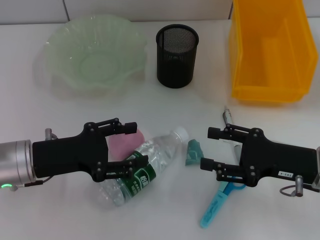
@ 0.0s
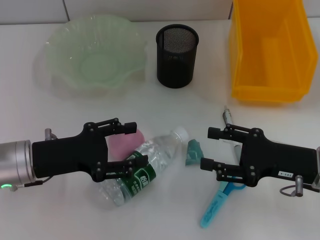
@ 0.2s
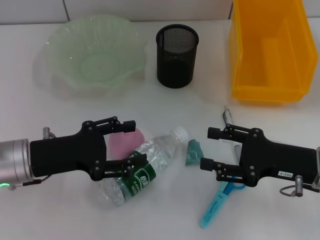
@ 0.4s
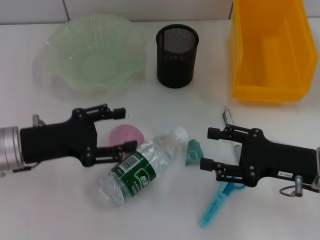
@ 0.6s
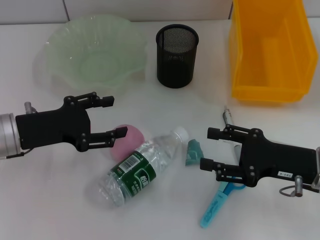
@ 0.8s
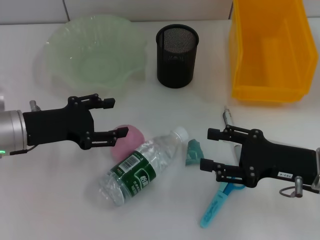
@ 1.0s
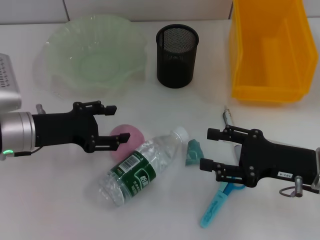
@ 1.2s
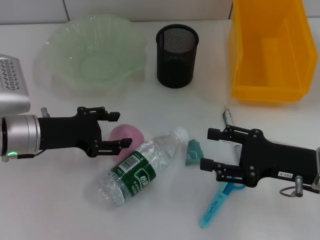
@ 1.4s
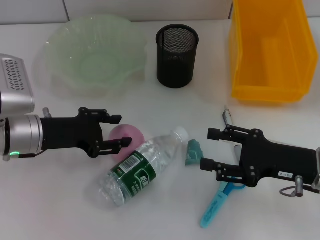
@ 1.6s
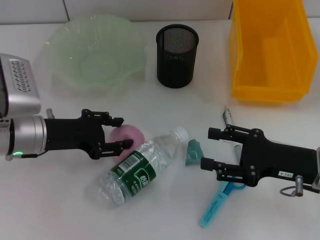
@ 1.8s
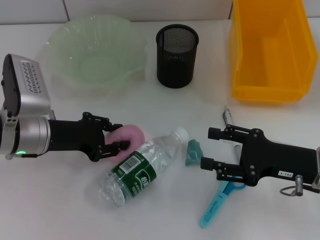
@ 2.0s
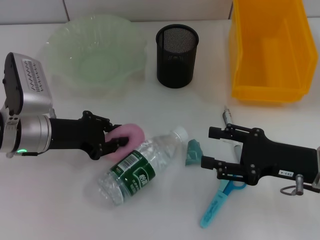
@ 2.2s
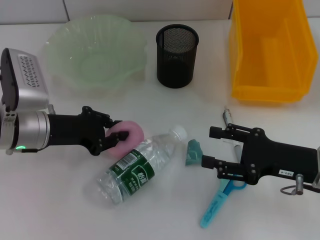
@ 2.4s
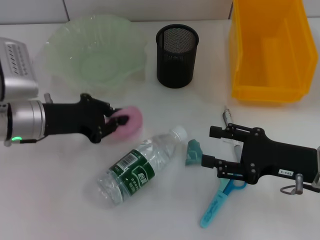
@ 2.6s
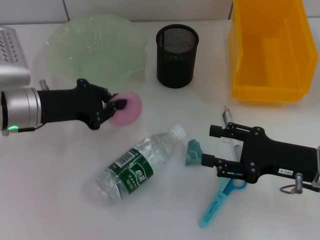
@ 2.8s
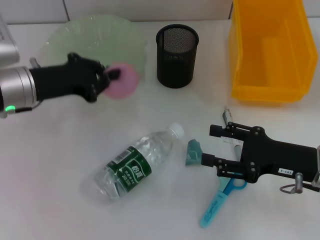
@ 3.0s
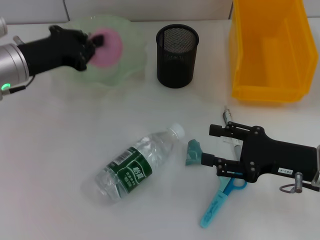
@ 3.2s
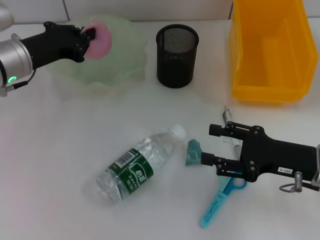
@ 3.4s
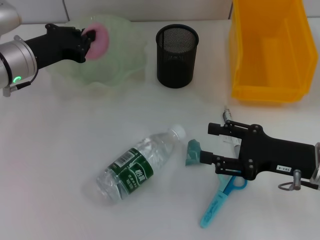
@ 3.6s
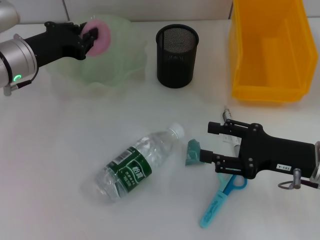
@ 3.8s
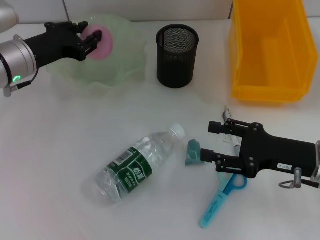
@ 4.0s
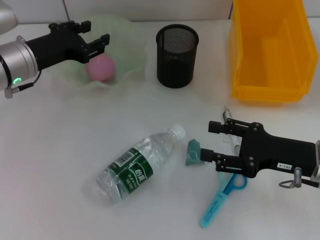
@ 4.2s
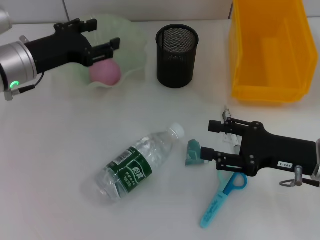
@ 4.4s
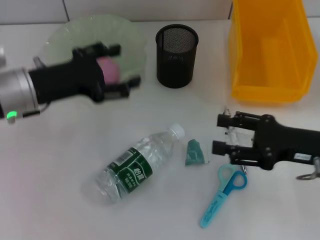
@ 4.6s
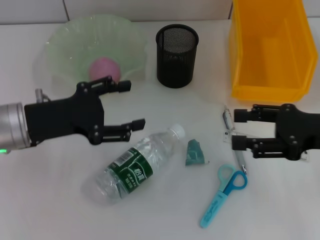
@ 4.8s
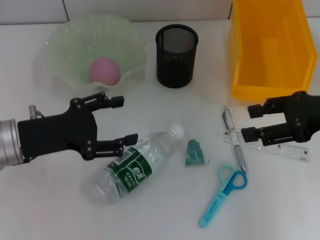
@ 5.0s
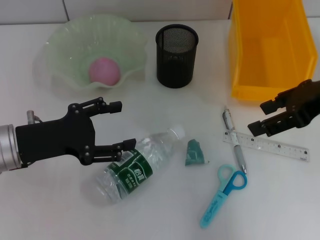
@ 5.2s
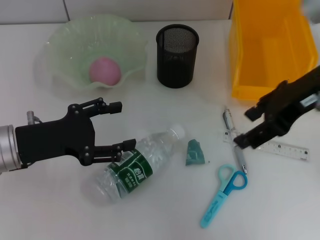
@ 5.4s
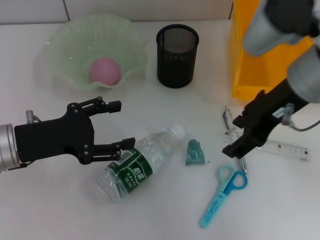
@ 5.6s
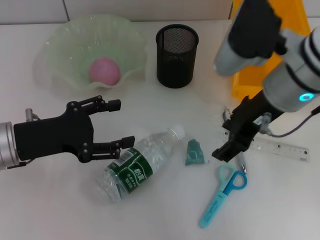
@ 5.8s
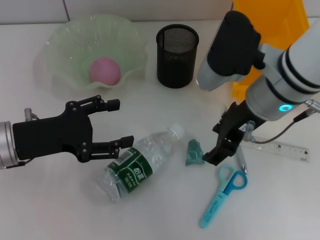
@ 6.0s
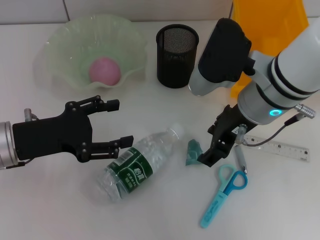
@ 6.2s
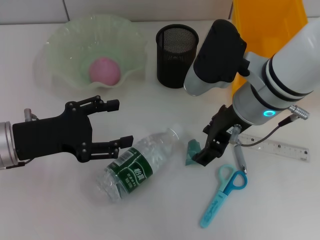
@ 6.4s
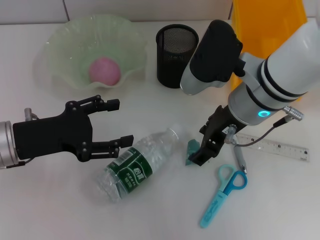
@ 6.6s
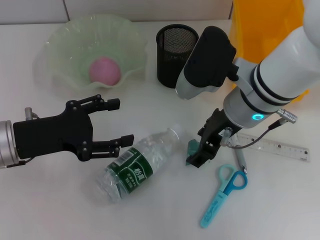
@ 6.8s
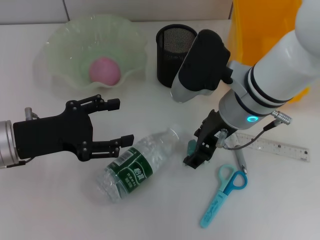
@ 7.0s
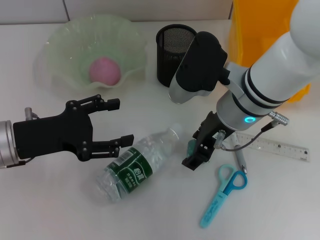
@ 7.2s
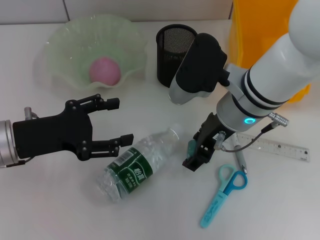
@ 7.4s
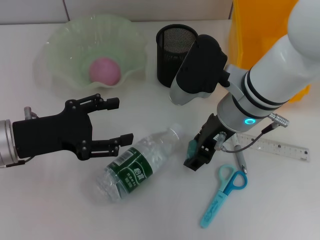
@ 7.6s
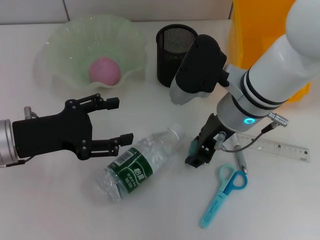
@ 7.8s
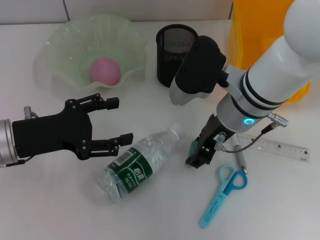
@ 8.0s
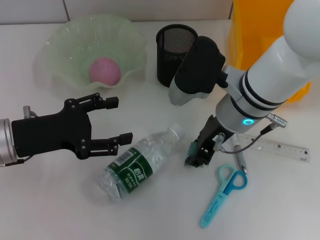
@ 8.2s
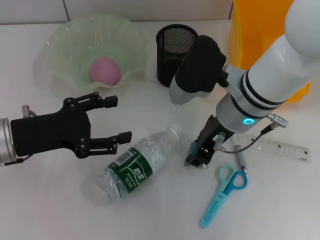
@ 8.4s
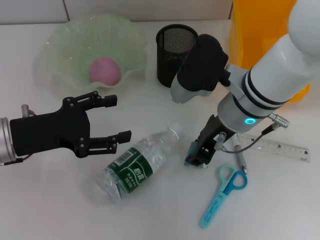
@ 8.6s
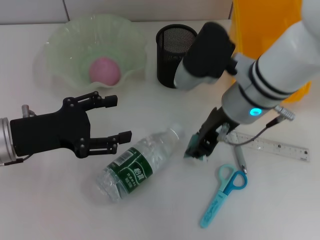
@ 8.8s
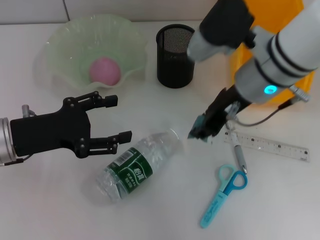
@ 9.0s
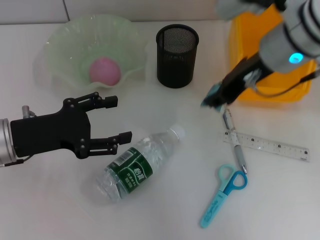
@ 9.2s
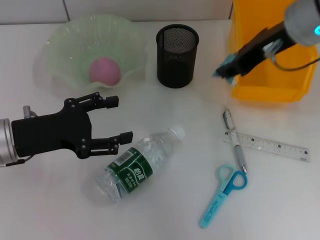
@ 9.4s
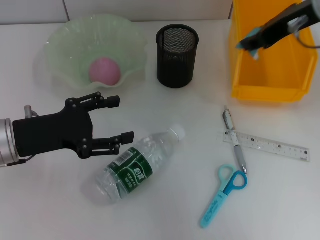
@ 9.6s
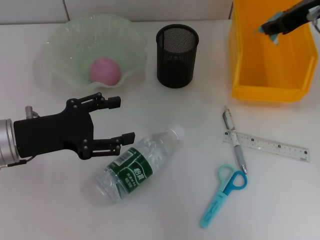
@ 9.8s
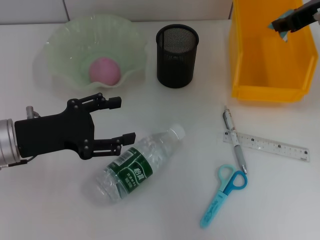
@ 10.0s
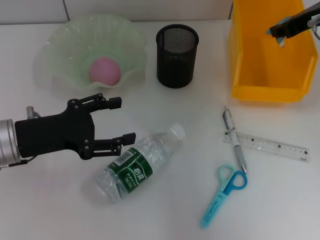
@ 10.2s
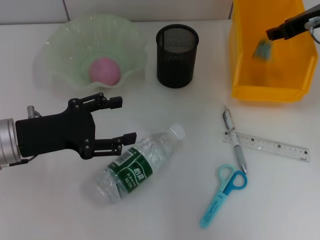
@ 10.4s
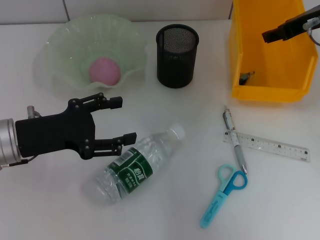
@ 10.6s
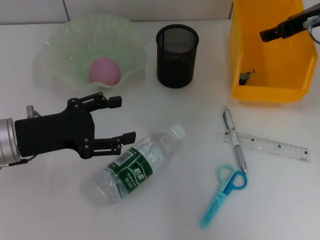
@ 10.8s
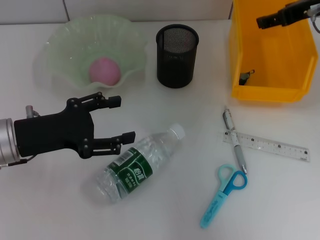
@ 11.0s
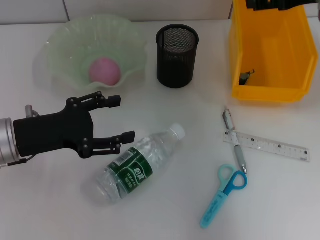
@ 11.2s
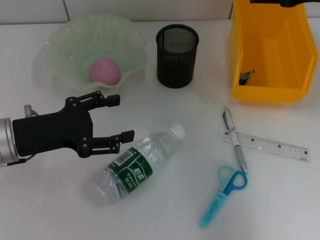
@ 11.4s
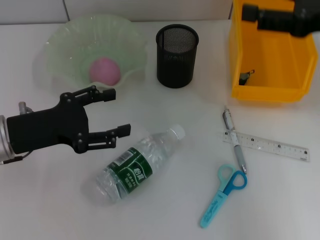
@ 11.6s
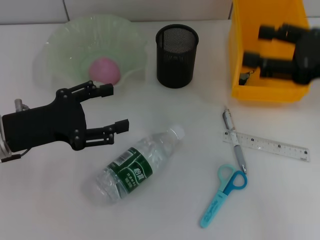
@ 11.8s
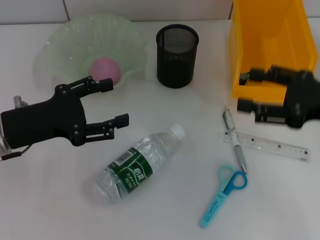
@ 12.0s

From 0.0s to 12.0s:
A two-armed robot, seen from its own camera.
Step, from 0.0s to 2.0s: Grab the peach with the left hand.
Step, from 2.2s to 4.2s: Place the peach into the fruit bowl with the left hand.
Step, from 4.4s to 7.6s: Grab the plastic with the right hand.
Step, from 8.0s to 10.6s: Place the plastic into the trash can with the right hand.
From 1.6s to 3.0s: The left gripper changes place by some 5 cm, and closes.
From 3.0s to 4.4s: The left gripper opens up.
From 4.4s to 6.0s: The left gripper shifts approximately 10 cm backward, and opens its fingers; the right gripper goes about 20 cm to the left, upward and forward.
From 6.0s to 7.6s: The grippers stay close to where they were, moving slightly.
From 7.6s to 9.0s: The right gripper moves roughly 5 cm, and closes its fingers.
From 9.0s to 10.4s: The right gripper is displaced to the right and forward by about 15 cm.
From 10.4s to 12.0s: The right gripper goes about 15 cm backward and downward, and opens its fingers.

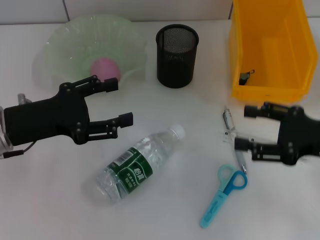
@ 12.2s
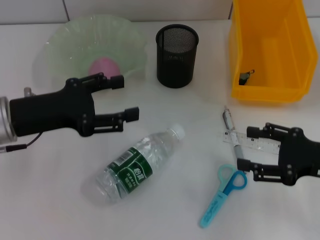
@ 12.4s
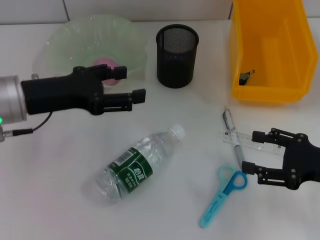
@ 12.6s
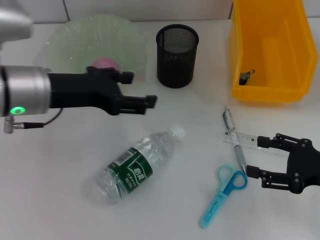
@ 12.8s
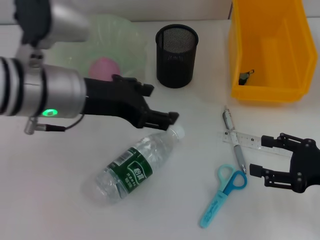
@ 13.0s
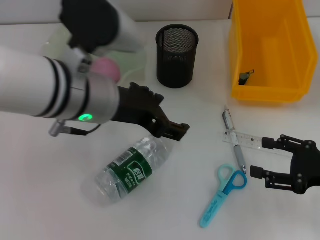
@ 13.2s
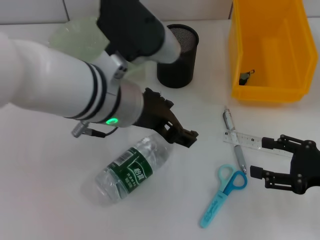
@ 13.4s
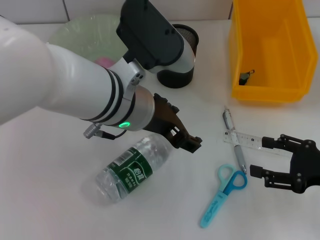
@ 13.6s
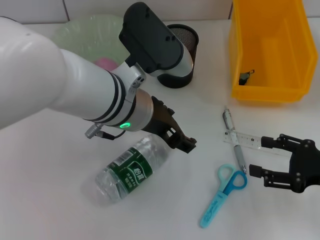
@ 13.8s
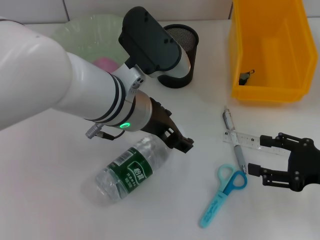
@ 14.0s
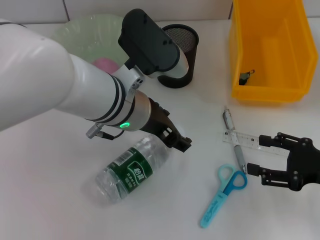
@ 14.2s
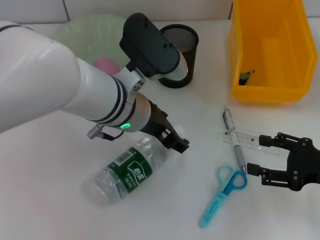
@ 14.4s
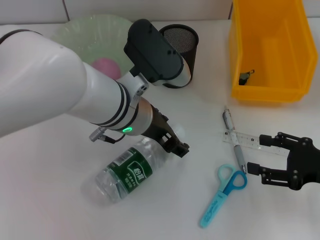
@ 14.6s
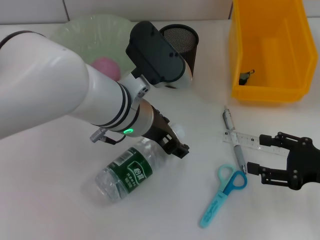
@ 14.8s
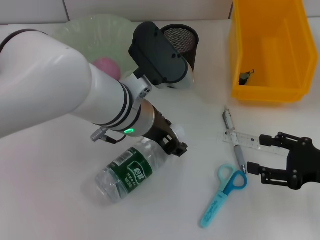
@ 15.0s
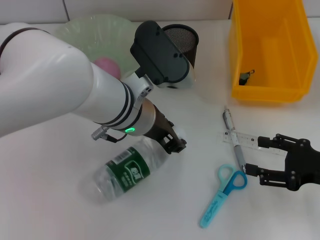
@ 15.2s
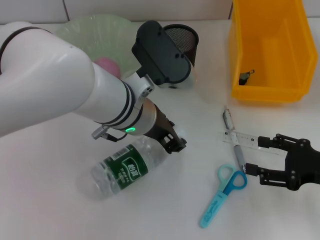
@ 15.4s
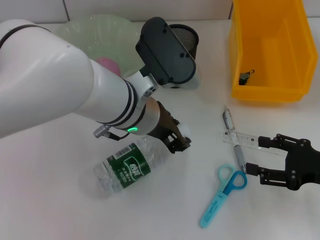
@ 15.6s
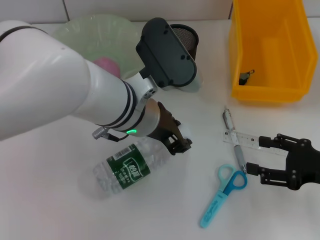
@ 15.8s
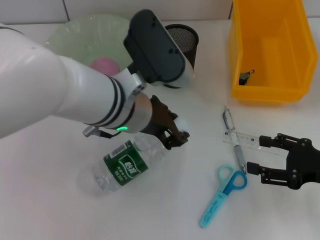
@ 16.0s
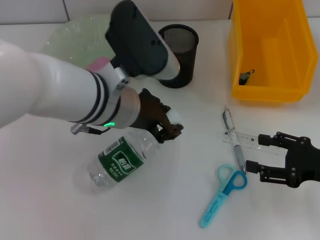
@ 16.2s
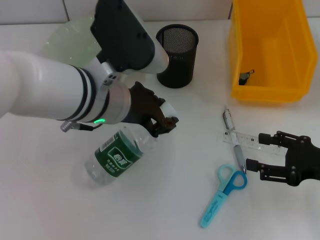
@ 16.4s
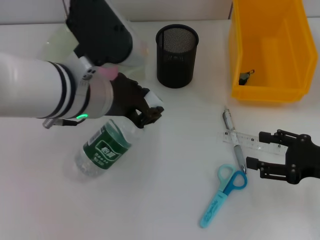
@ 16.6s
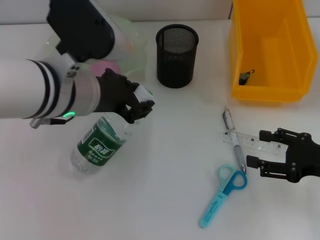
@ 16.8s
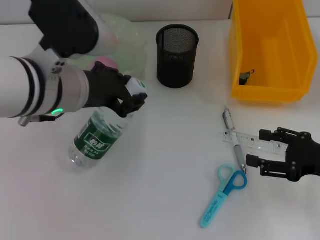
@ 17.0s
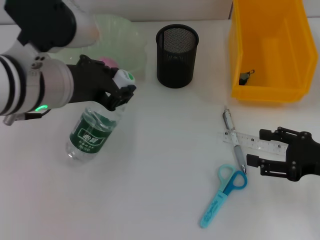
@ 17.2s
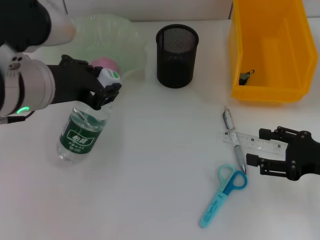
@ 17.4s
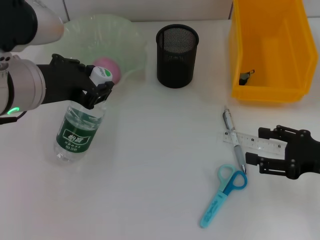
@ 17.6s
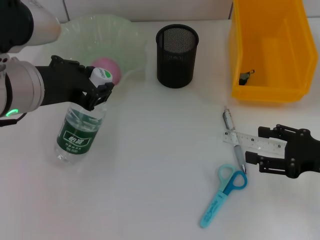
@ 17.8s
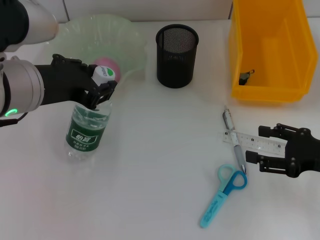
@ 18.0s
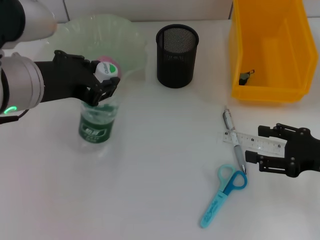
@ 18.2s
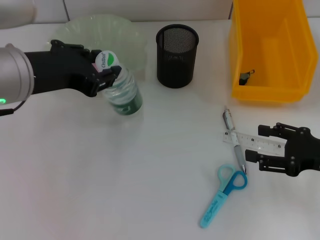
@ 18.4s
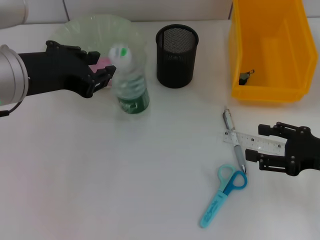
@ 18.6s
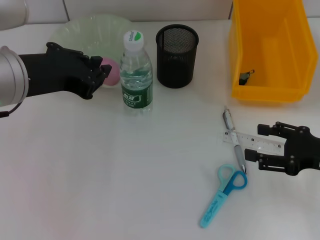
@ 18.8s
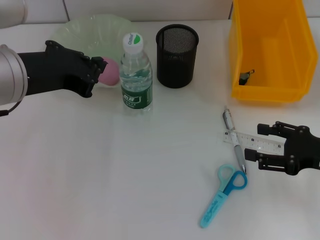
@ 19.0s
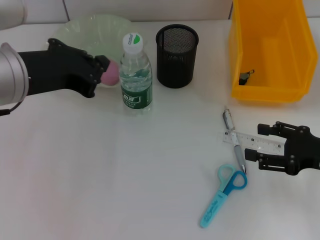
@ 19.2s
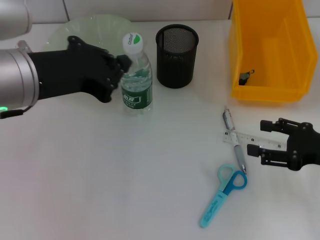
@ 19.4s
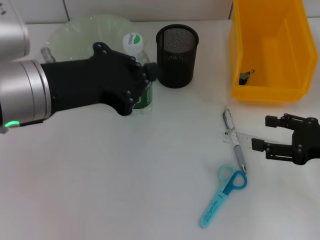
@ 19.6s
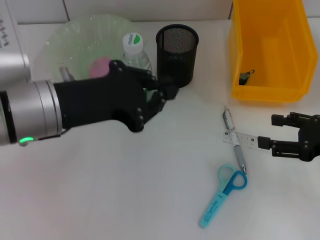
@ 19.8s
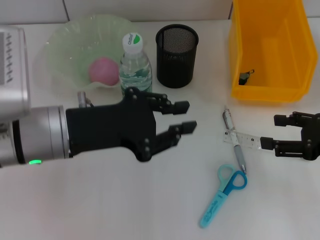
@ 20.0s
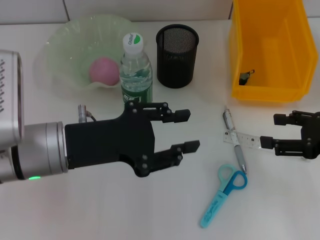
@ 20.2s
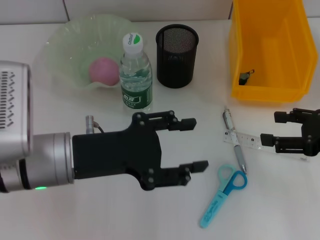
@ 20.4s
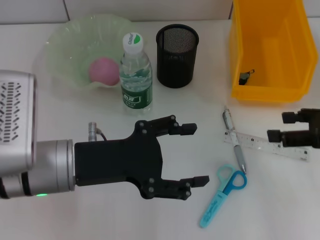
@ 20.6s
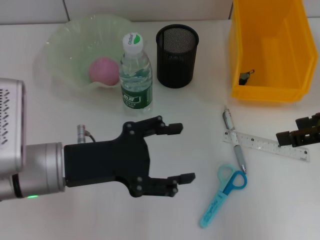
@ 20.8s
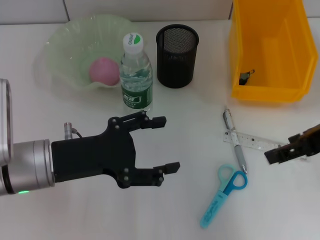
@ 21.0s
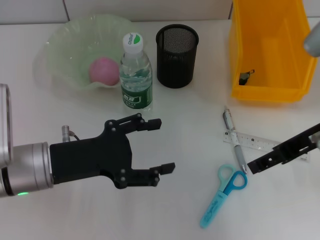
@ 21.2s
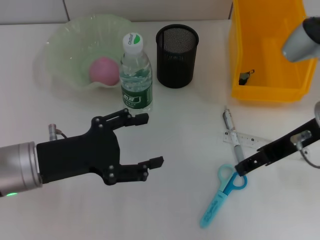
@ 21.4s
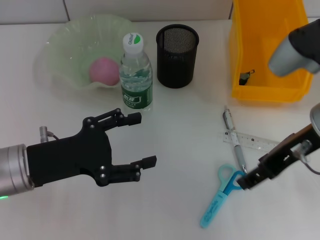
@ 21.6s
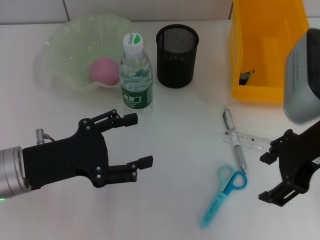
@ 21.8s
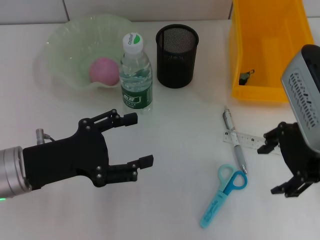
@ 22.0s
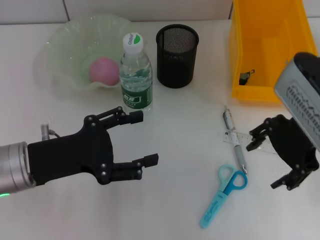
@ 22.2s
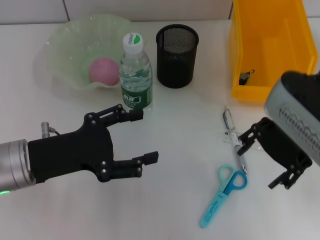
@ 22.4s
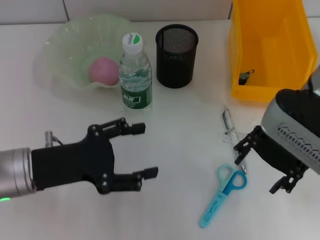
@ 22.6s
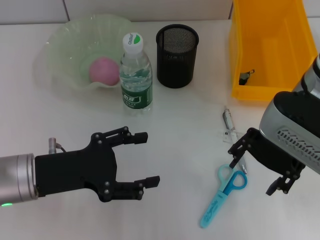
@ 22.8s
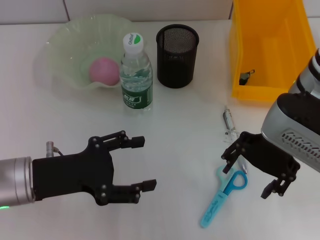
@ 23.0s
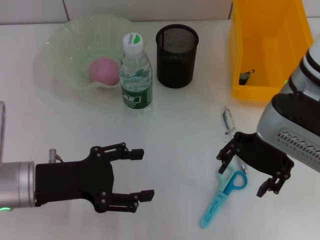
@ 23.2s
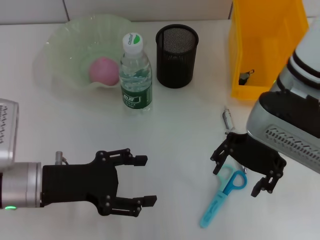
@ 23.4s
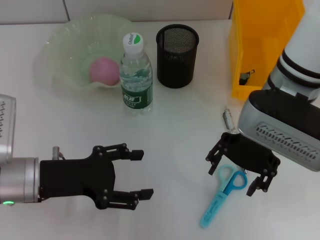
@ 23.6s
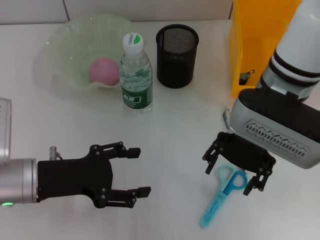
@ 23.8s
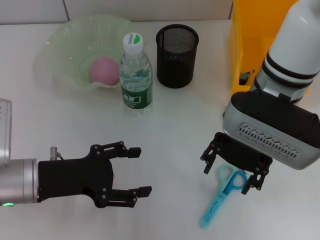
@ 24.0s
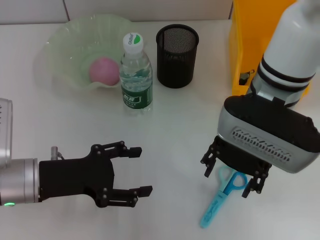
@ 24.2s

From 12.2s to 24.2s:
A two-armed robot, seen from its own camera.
Step, from 12.2s to 15.2s: Grab the water bottle with the left hand.
Step, from 15.6s to 18.4s: Place the water bottle on the table with the left hand.
From 12.2s to 13.8s: The left gripper moves to the right, roughly 20 cm, while the right gripper changes place by approximately 5 cm.
From 13.8s to 15.2s: The grippers move only a little.
From 15.2s to 16.6s: The left gripper shifts approximately 5 cm to the left.
From 16.6s to 18.2s: The left gripper shifts about 5 cm to the left.
From 18.2s to 19.8s: The left gripper closes up.
From 19.8s to 21.2s: The left gripper heads downward, covering approximately 10 cm, and opens up. Meanwhile the right gripper shifts roughly 15 cm to the left and upward.
From 21.2s to 22.6s: The right gripper is displaced to the left by approximately 5 cm.
From 22.6s to 24.2s: The right gripper travels to the left by roughly 5 cm.
